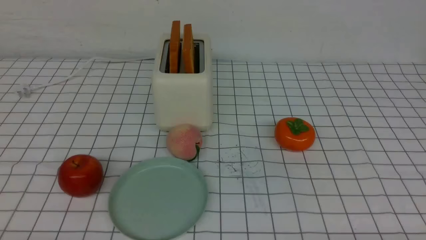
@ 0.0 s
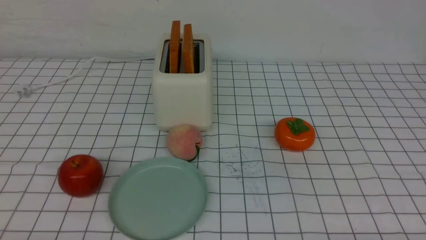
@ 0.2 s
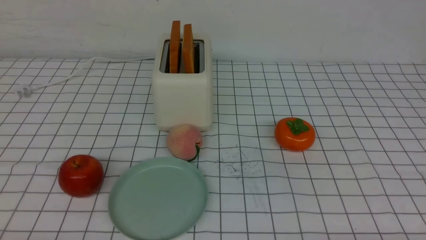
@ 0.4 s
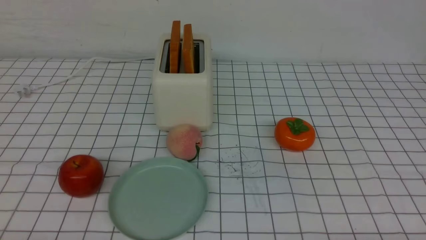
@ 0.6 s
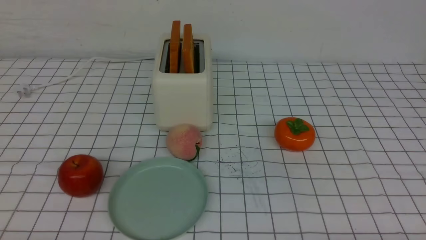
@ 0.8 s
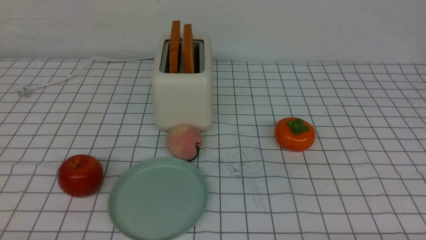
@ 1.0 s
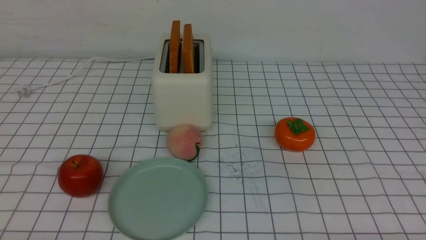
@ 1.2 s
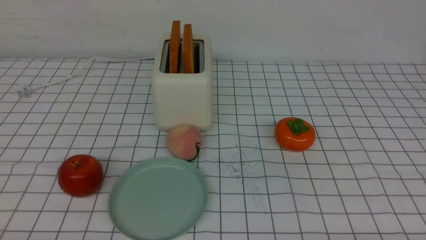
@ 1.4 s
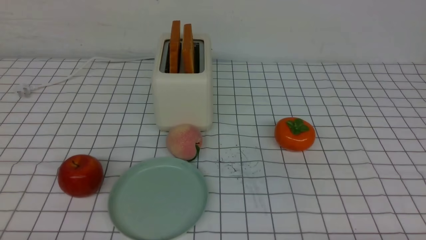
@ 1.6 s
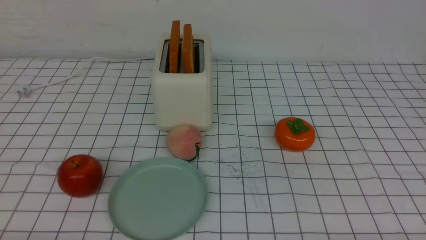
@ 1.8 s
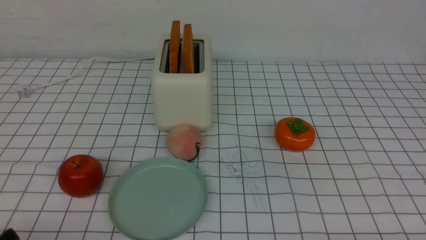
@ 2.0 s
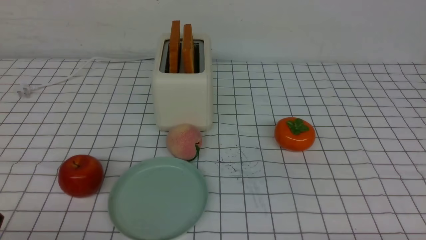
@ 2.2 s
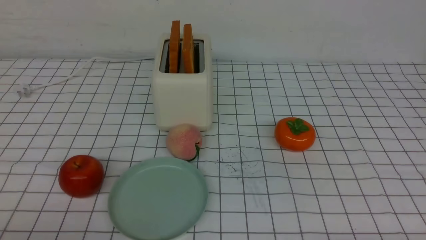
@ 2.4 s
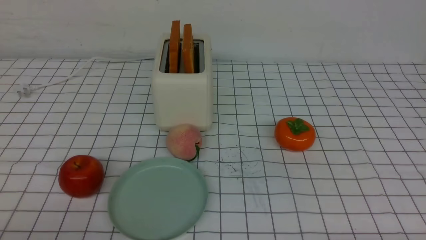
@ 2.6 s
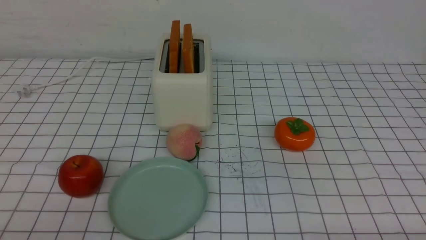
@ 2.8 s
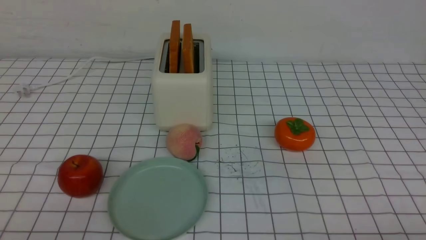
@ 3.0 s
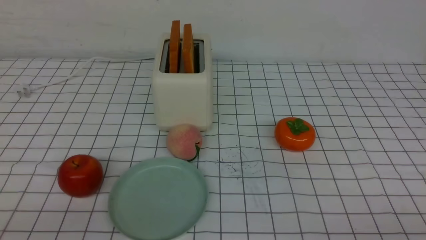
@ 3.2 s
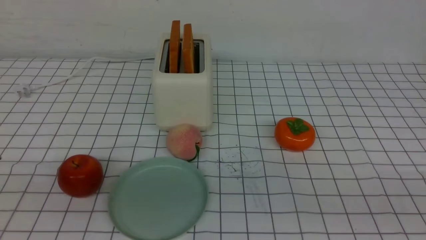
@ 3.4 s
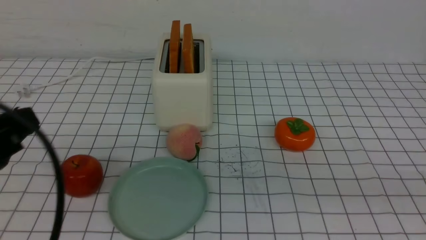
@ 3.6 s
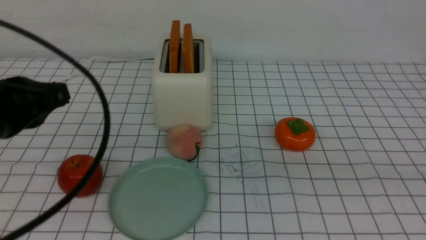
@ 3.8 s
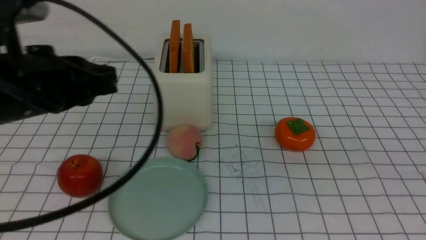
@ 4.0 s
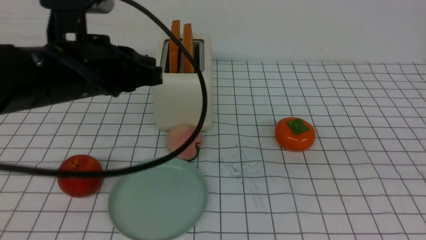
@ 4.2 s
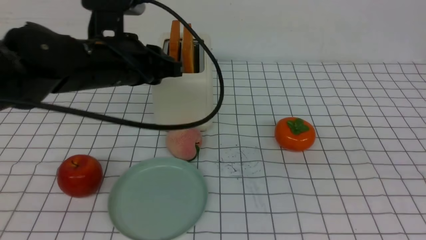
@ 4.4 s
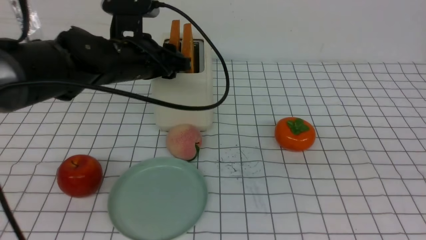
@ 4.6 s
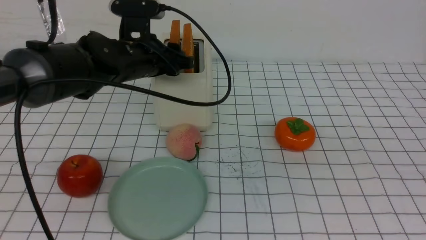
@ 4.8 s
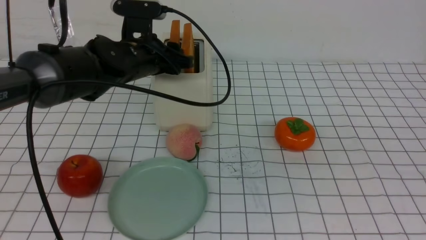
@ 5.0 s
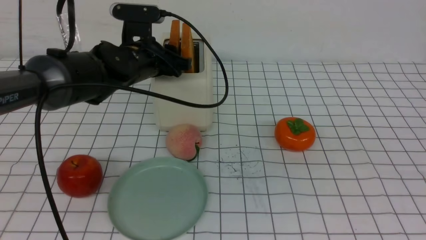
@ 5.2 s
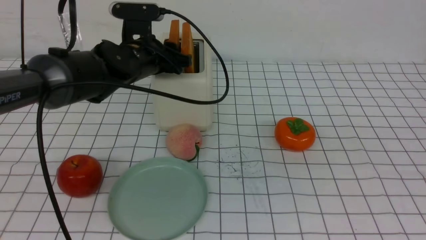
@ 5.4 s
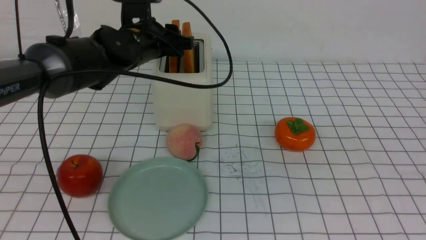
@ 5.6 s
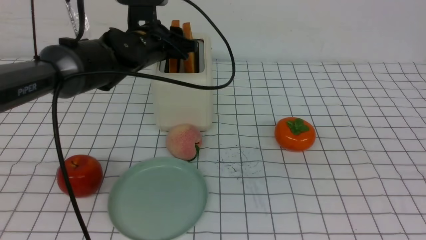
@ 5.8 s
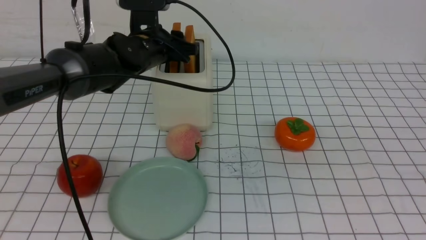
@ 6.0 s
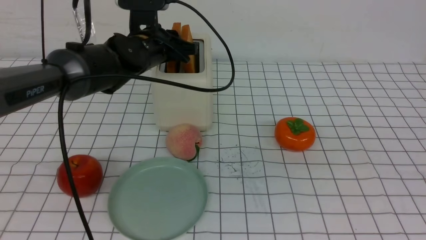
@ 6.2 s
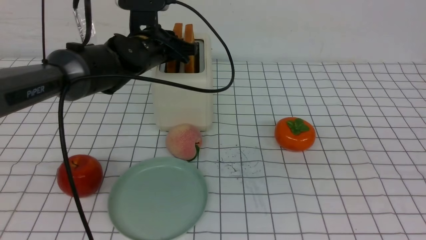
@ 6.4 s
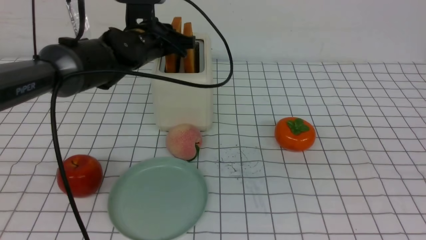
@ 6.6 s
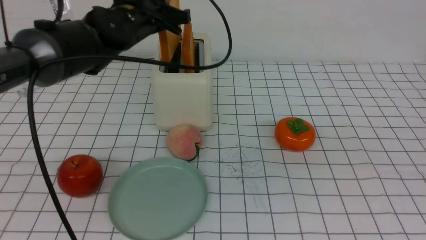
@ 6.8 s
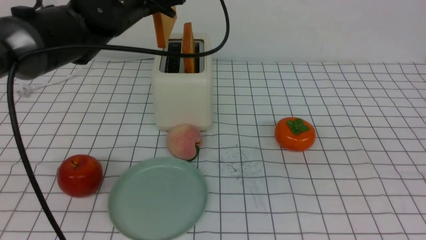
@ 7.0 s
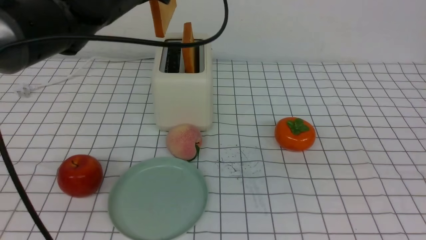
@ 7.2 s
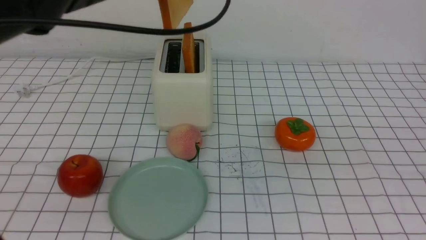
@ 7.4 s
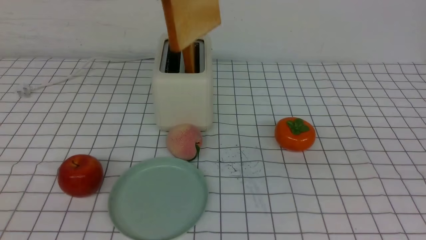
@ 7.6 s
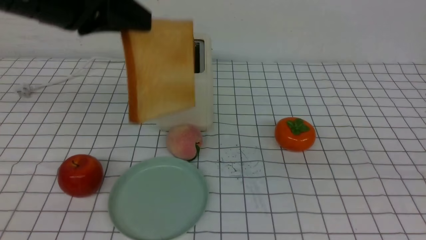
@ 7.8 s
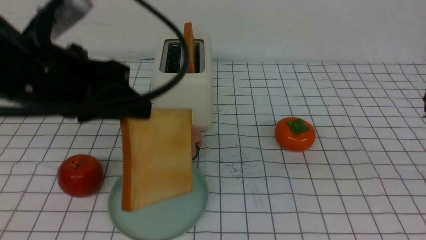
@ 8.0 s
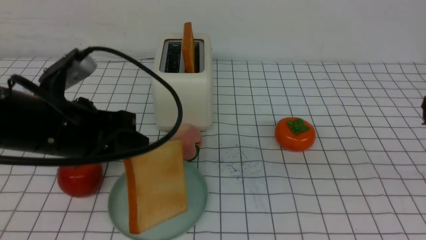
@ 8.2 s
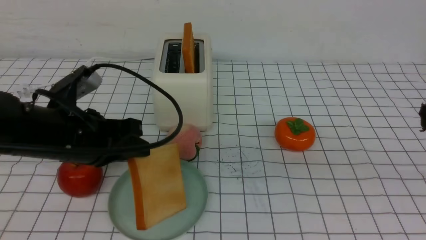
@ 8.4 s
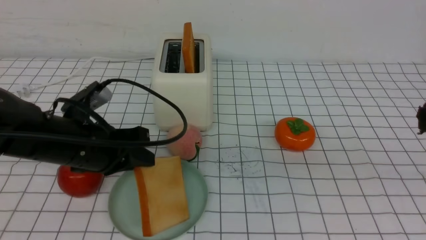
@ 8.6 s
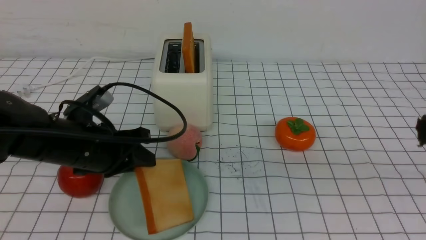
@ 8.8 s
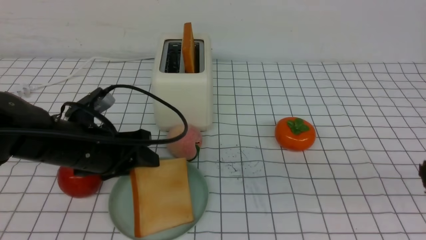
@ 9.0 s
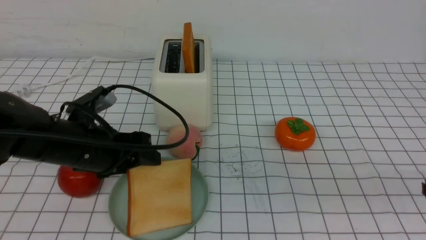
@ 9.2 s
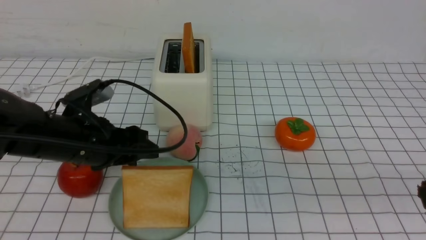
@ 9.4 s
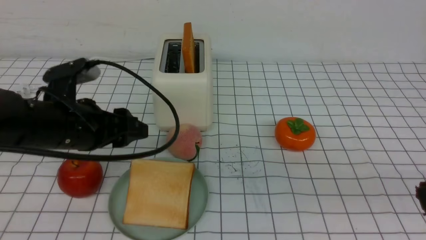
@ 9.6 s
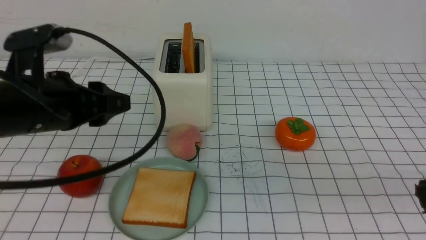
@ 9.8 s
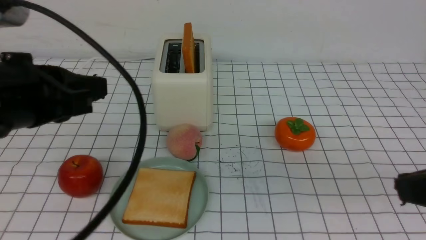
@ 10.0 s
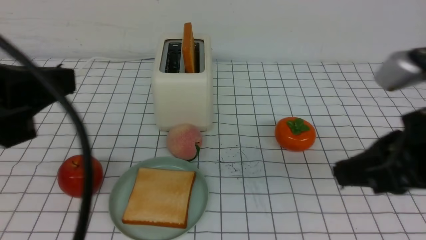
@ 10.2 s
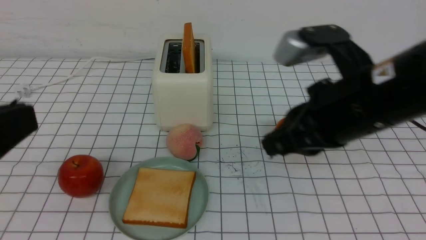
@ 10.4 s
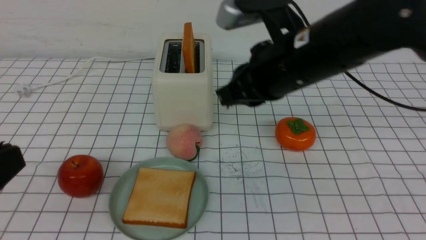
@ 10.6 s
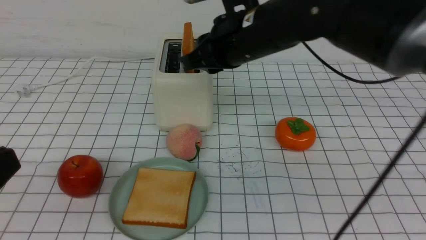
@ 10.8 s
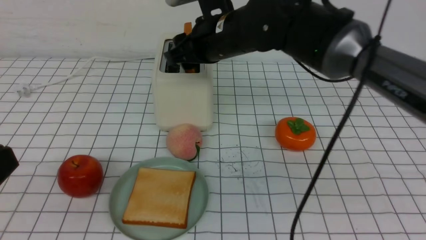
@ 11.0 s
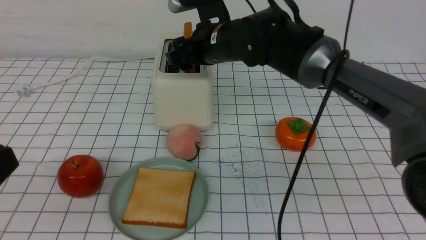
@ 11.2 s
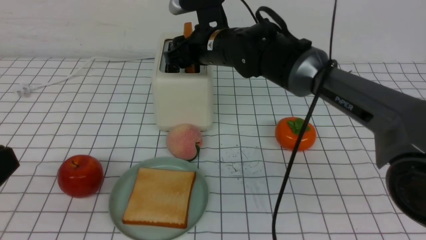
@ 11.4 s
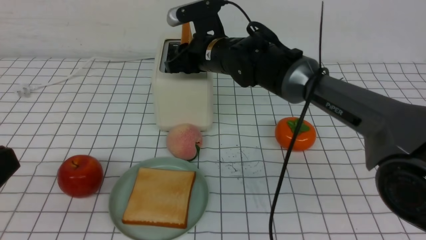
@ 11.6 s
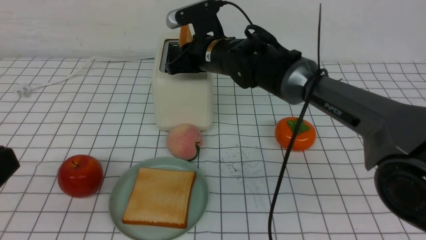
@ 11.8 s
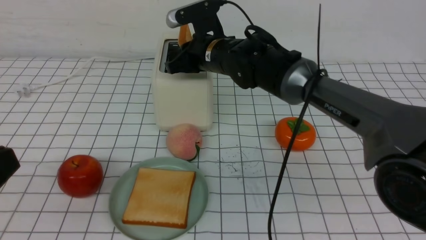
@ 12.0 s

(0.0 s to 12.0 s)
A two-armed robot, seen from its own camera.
Task of the whole recording: take toasted bread from bread machine on white checkered table place on plate.
Step, 0.0 s - 6.8 s: use the left arm to take out a slice of bread.
Step, 7.0 s - 9.6 s: use the left arm to put a slice of bread into the empty plate.
0.0 s - 1.6 s: Both grippers stay about where they are.
3.0 s - 4.4 s: The left gripper shifts roughly 30 cm forward and to the right, and closes and opens again, while the right gripper goes about 20 cm upward, and closes its fingers.
4.4 s - 6.0 s: The left gripper shifts roughly 10 cm forward.
6.0 s - 7.6 s: The left gripper heads upward and backward, covering approximately 20 cm, and closes.
7.6 s - 9.0 s: The left gripper heads downward, covering approximately 20 cm, and opens its fingers.
9.0 s - 10.4 s: The right gripper travels forward and to the left by some 15 cm; the left gripper is displaced backward and upward by about 25 cm, and closes its fingers.
10.4 s - 12.0 s: The right gripper moves forward, to the left and downward, some 30 cm, and opens and closes again.

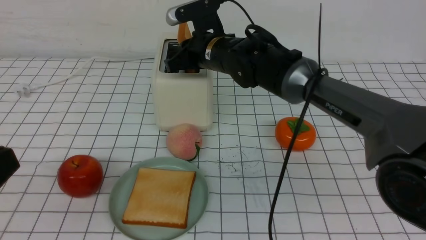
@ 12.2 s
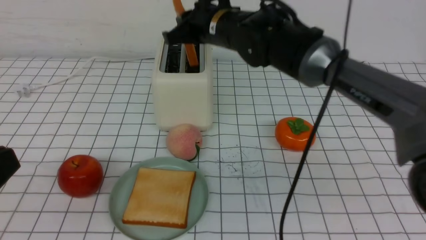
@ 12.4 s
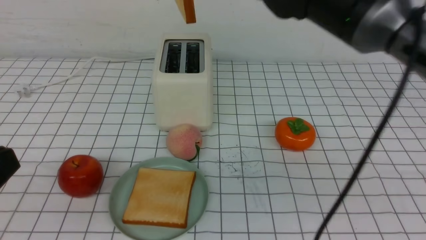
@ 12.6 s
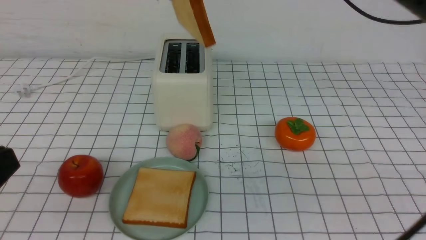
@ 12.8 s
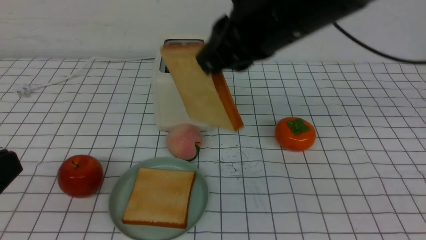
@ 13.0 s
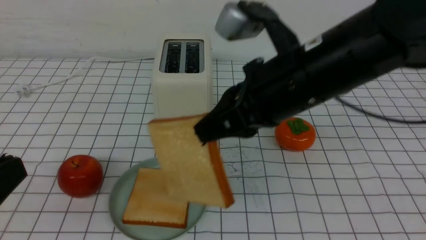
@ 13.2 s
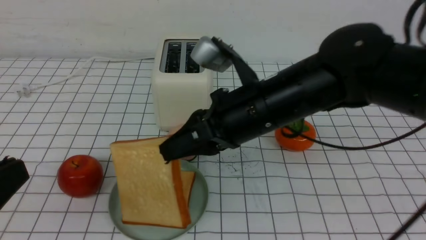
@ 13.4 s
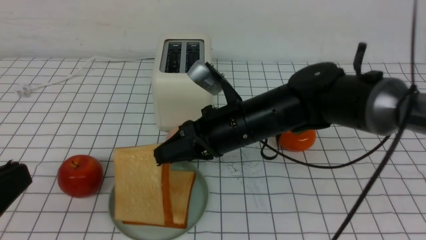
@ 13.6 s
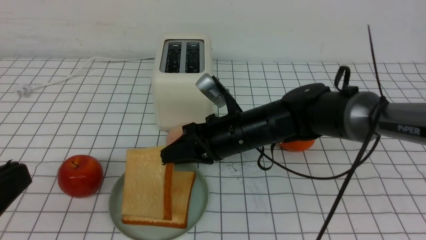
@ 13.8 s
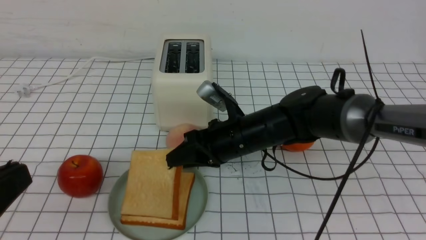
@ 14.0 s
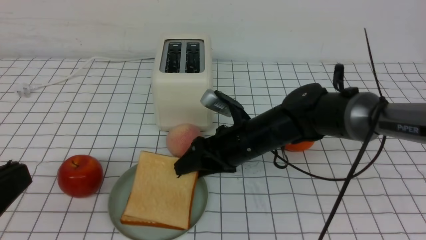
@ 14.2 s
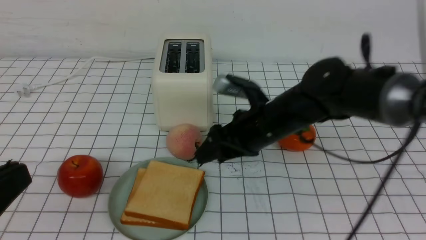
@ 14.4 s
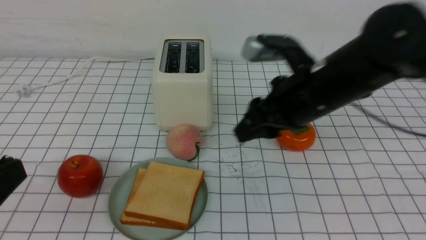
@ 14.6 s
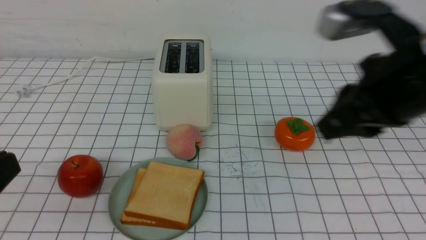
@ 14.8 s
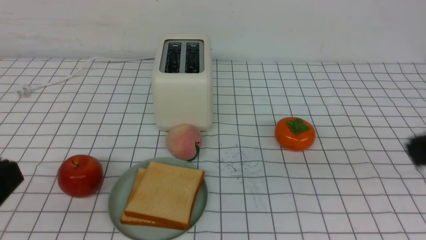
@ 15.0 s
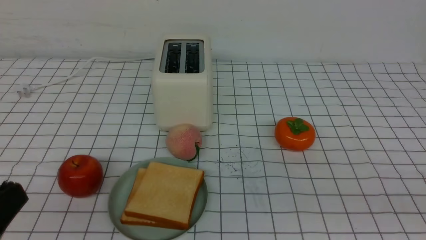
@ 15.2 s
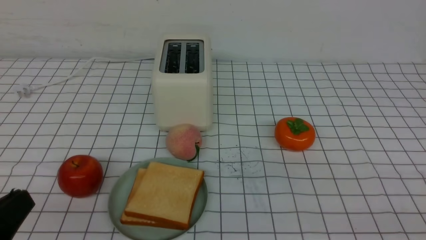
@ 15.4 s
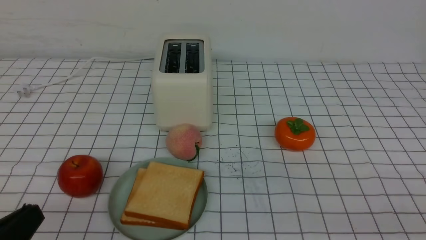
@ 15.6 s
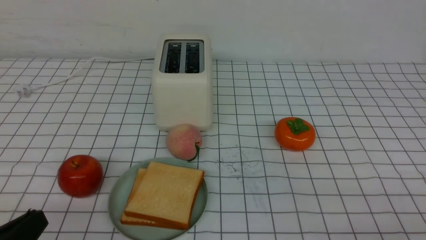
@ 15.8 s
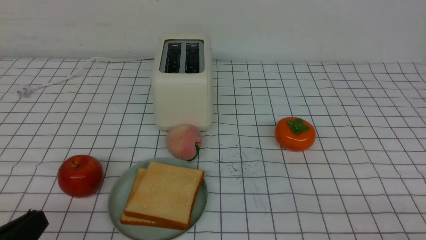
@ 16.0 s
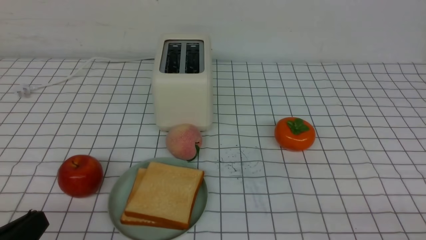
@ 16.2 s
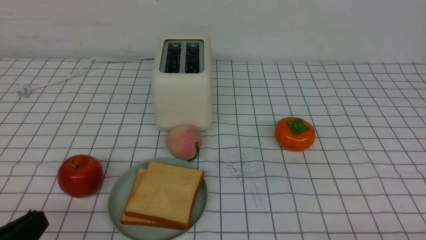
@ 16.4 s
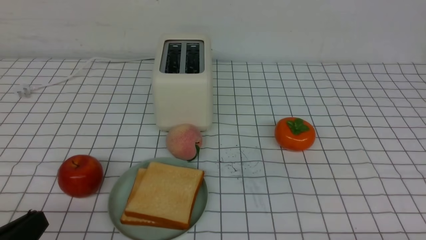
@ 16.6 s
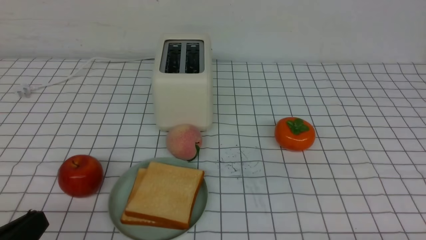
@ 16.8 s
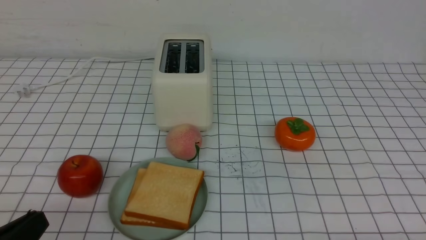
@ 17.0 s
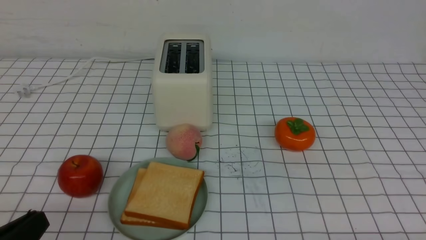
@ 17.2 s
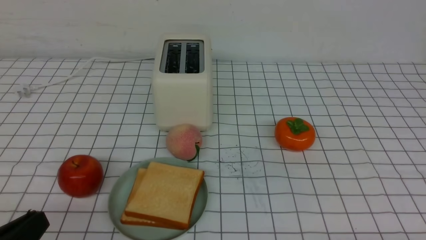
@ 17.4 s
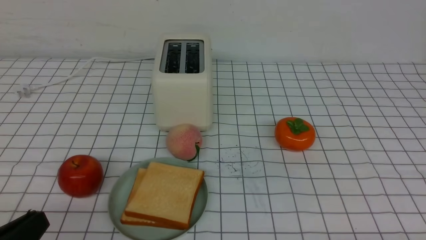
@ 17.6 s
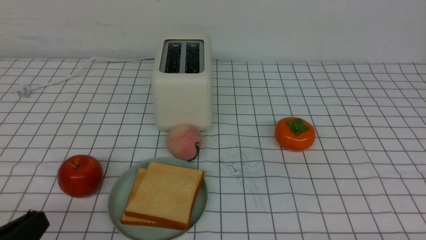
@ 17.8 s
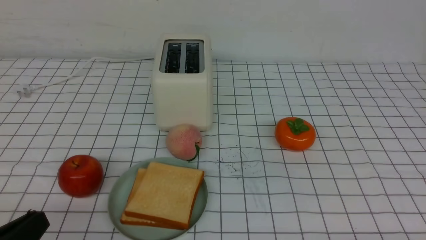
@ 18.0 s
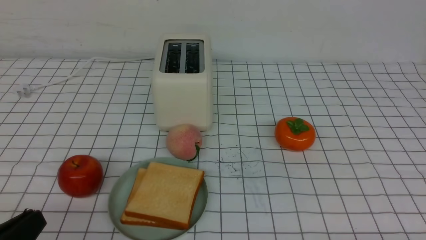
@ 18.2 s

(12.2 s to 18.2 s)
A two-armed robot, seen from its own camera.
Task of the whole recording: take toasted bread from bread machine on white checkered table place on plate.
Step, 12.6 s - 14.4 s: use the right arm to put a slice of bread into the plate.
12.2 s - 13.8 s: The right gripper heads backward and downward, covering about 15 cm.
13.8 s - 15.2 s: The right gripper moves backward, to the right and upward, about 40 cm, and opens and closes again.
15.2 s - 16.6 s: The left gripper goes about 5 cm downward.
